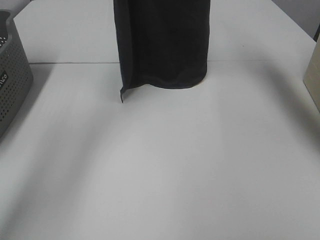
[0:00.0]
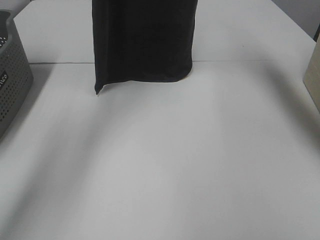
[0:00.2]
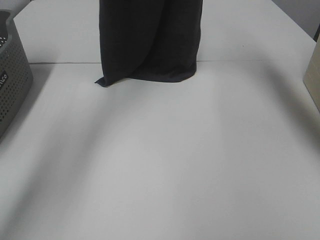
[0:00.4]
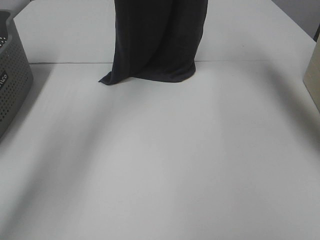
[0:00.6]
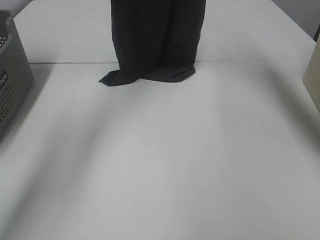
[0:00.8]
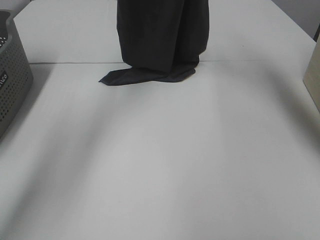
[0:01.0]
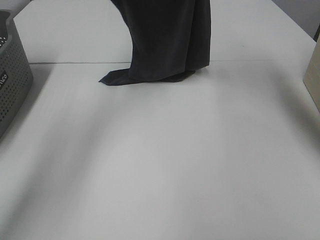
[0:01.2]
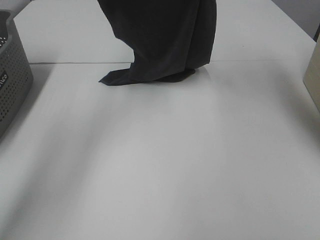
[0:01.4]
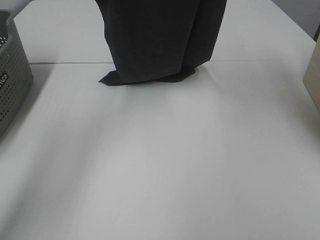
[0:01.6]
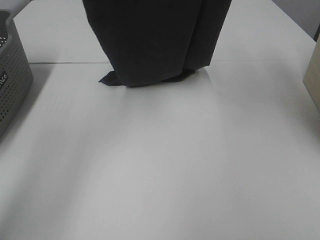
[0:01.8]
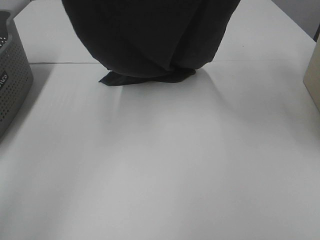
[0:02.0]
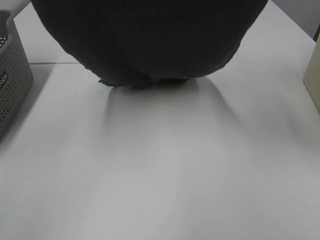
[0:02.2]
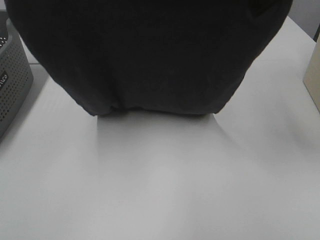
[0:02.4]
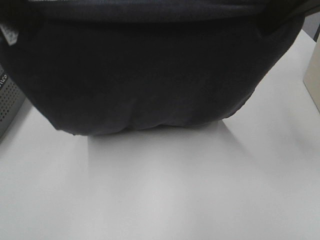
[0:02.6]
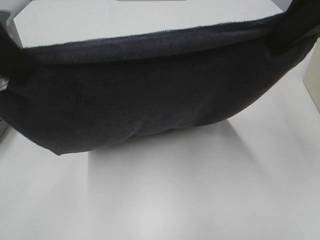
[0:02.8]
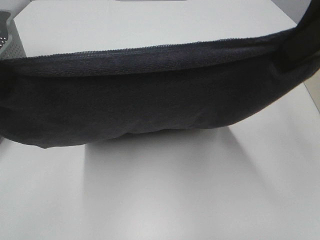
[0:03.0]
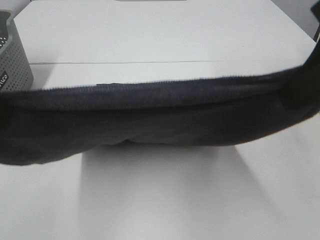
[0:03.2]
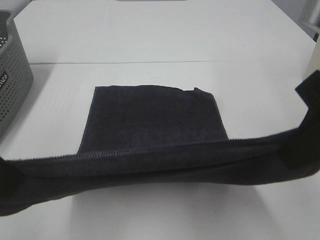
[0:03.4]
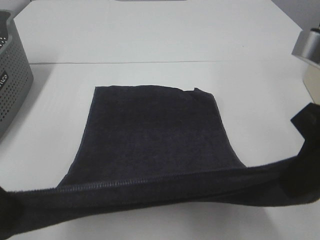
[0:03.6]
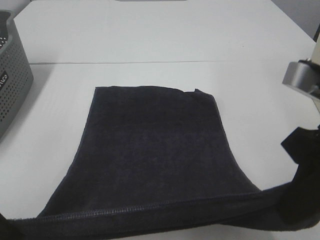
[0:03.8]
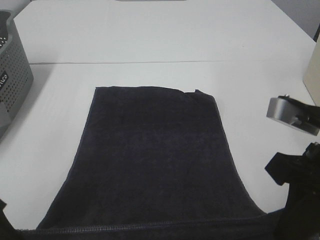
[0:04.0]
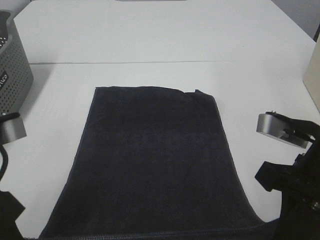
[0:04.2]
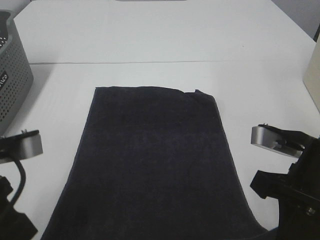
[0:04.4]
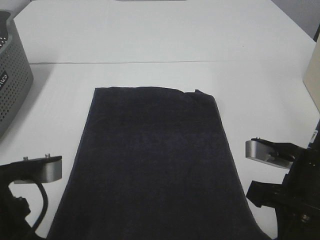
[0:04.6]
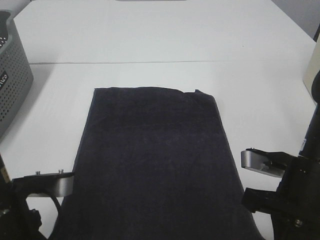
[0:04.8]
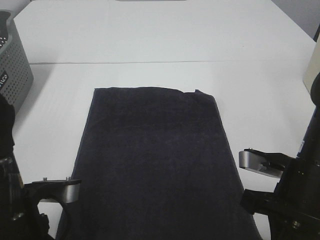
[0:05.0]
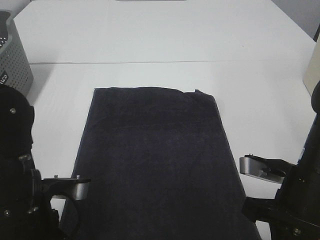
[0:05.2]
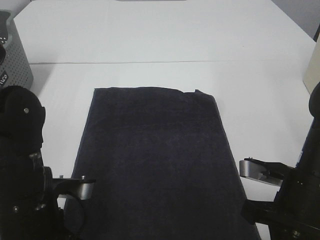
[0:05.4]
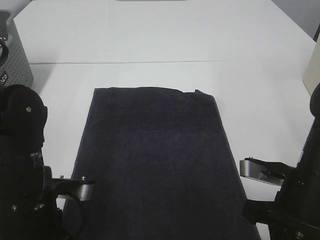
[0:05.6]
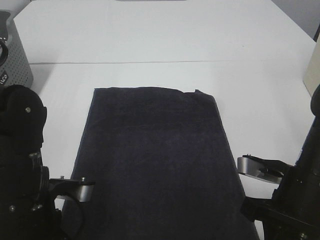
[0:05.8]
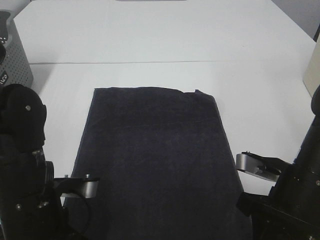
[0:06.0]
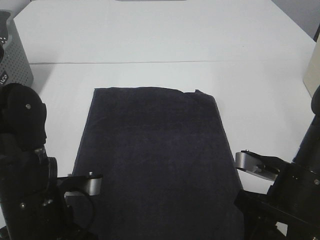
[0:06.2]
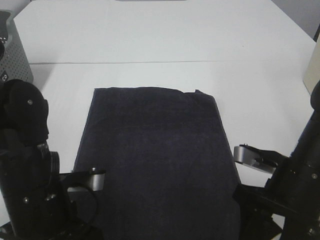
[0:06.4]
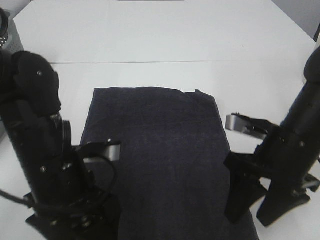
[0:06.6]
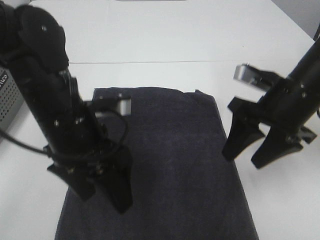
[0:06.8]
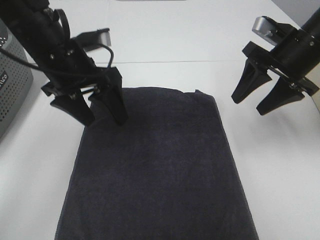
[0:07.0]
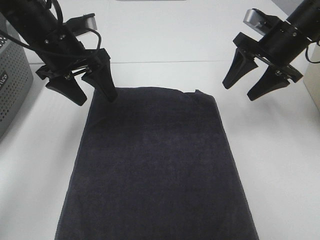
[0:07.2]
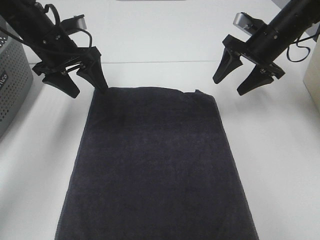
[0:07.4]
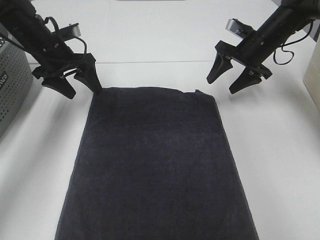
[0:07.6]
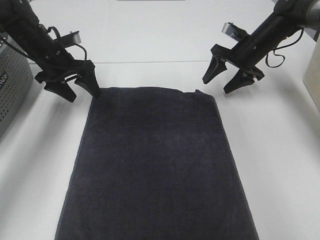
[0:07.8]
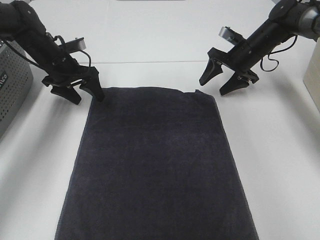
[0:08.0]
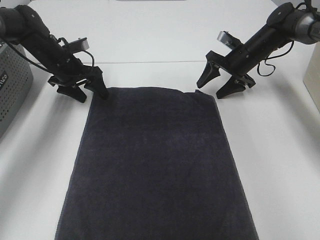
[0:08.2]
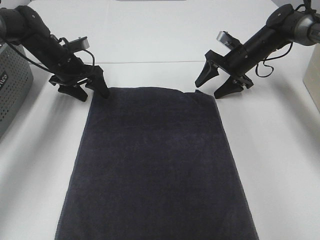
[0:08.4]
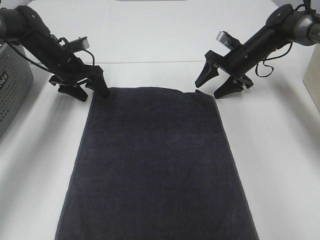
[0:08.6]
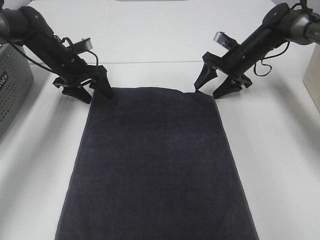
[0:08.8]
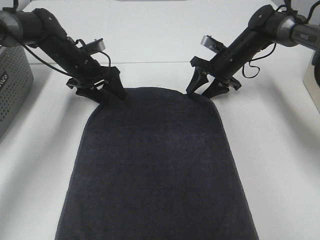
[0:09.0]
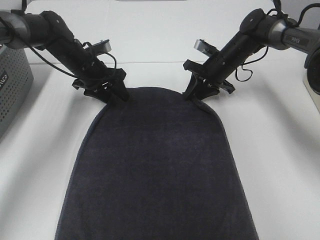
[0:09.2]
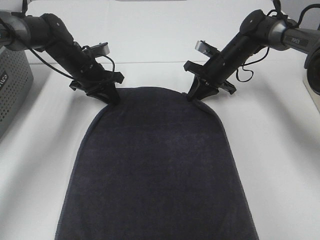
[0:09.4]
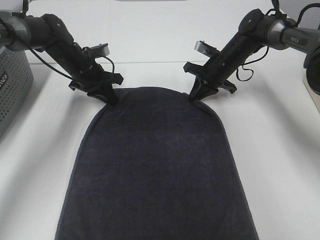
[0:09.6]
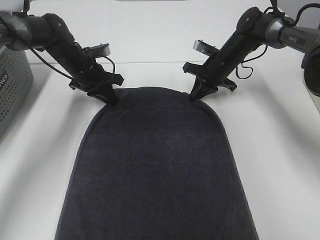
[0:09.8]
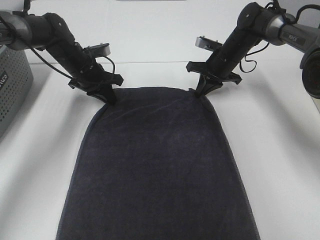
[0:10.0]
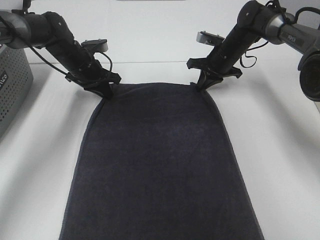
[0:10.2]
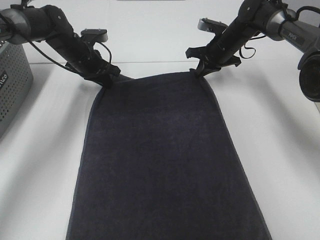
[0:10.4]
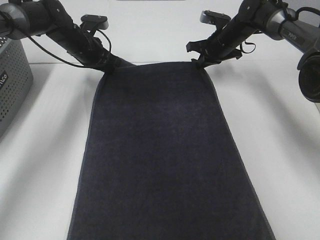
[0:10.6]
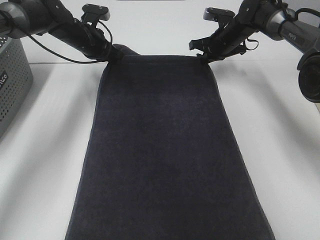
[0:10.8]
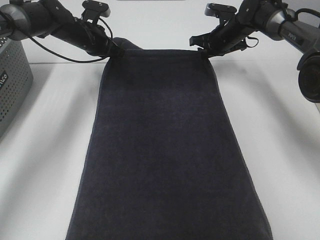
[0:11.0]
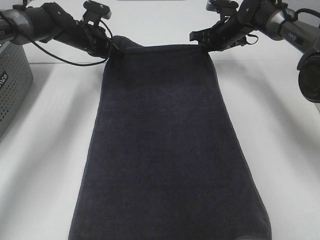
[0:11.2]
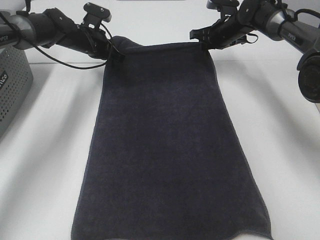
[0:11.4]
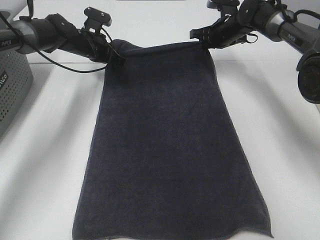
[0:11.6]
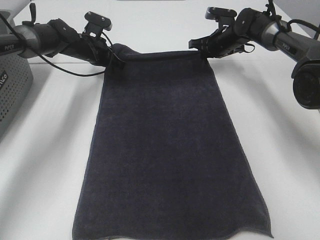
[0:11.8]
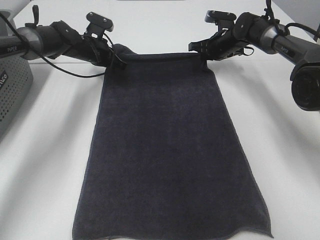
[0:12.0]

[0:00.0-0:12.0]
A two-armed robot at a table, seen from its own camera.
Task of the whole recording: Remove the towel and place it.
Step, 0:00.0 to 0:02.6: Left hand: spread the grey towel flat on the table.
Step, 0:00.0 to 0:02.6: Right hand: spread the grey towel flat on the table.
Step, 0:02.8 to 0:08.4: Left hand:adjust the gray towel.
Step, 0:02.8 to 0:08.4: Right hand:adjust the gray towel.
0:00.0 to 0:01.6: The left gripper heads downward, covering approximately 5 cm. The right gripper moves backward, some 5 cm.
0:01.6 to 0:03.0: The grippers both shift backward by about 25 cm.
0:03.0 to 0:04.4: Both grippers move downward, some 20 cm.
0:04.4 to 0:06.0: The two grippers go about 5 cm downward. The right gripper opens its fingers.
0:06.0 to 0:07.6: Both grippers travel together forward, approximately 30 cm. The left gripper opens its fingers. Meanwhile the right gripper opens up.
0:07.6 to 0:09.0: The grippers both shift downward by about 5 cm.
0:09.0 to 0:10.4: The right gripper moves roughly 5 cm, and closes up; the left gripper closes.

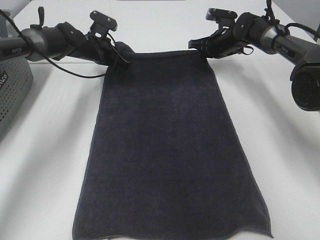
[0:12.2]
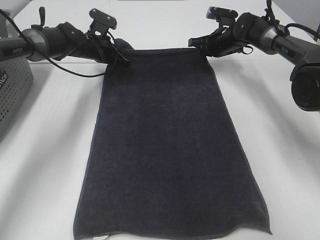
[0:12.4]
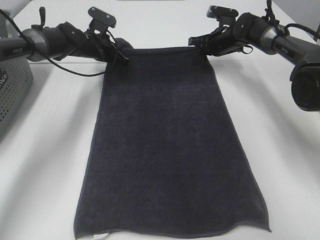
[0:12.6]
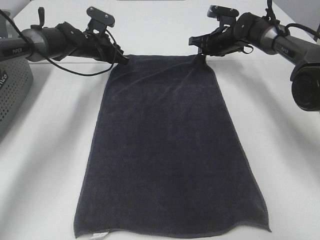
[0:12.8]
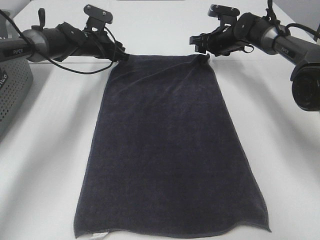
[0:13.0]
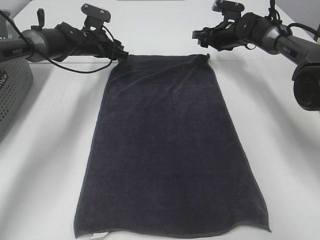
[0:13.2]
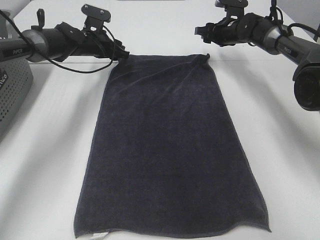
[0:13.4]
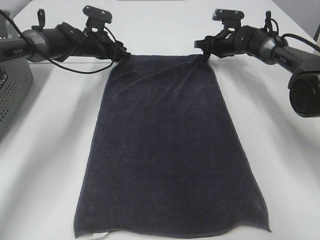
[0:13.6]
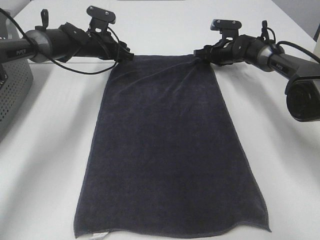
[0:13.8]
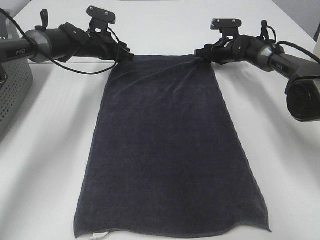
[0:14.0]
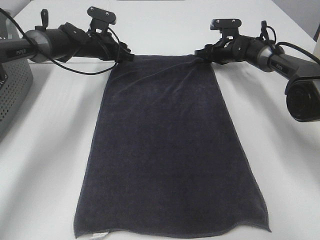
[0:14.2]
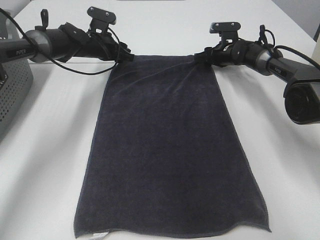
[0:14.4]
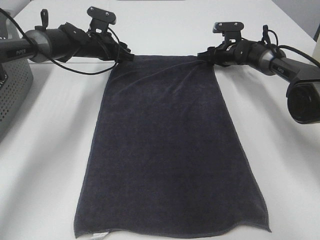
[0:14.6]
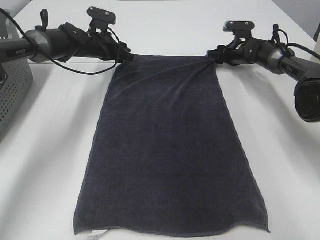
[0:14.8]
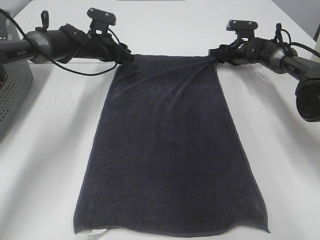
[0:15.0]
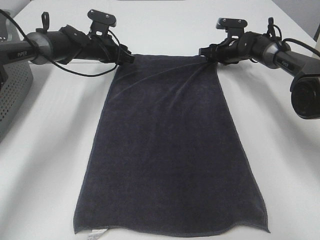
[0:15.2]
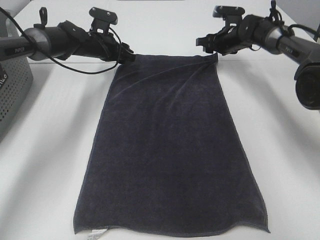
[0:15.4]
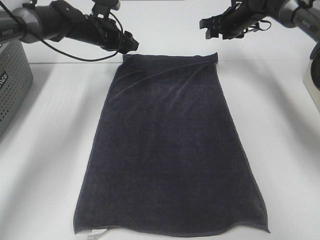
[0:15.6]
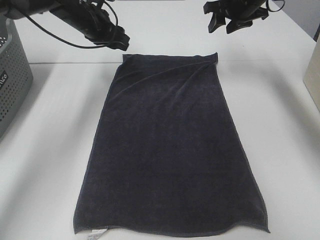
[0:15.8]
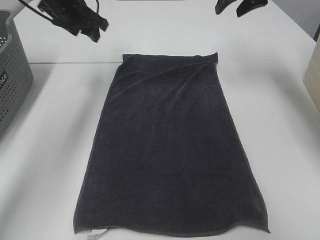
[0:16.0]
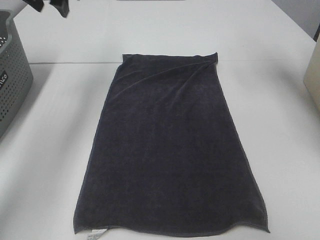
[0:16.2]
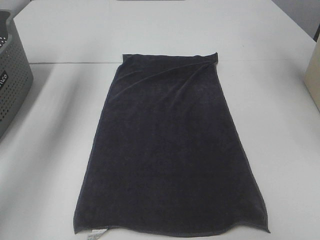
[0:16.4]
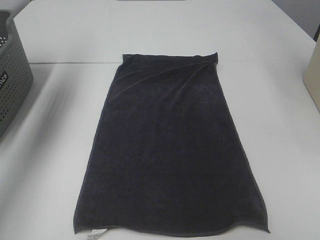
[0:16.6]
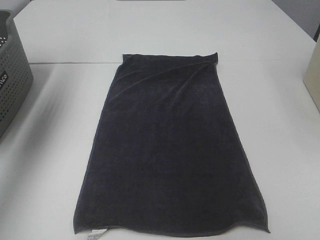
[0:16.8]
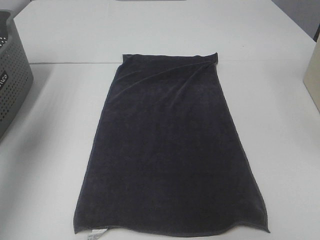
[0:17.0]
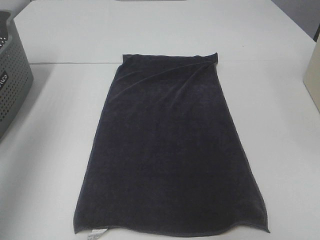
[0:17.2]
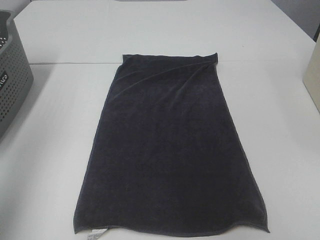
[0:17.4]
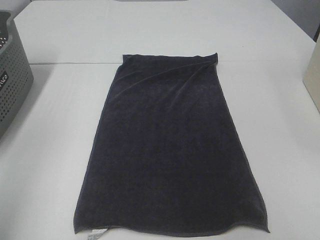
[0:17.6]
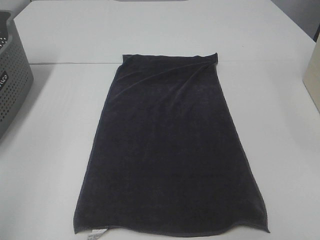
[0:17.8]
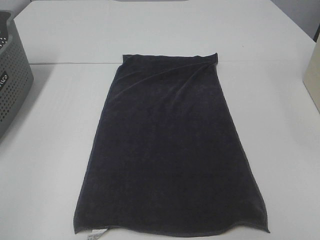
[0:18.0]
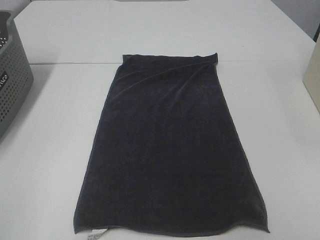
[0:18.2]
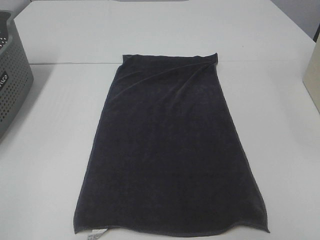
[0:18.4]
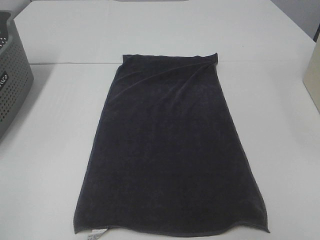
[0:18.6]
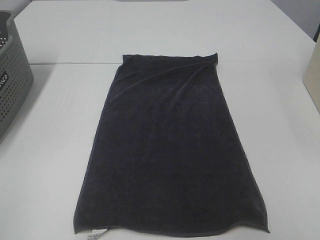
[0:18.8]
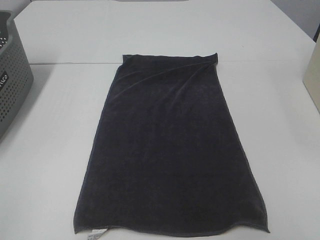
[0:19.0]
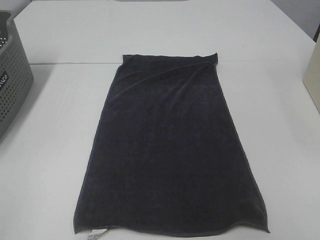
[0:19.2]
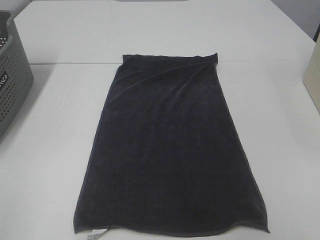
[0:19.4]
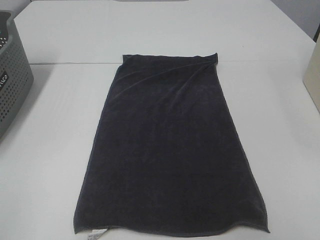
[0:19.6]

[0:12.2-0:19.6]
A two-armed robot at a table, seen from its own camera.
Task of the whole recording: Remove the towel and place it.
0:12.2 to 0:13.6: The right gripper opens up; the left gripper opens.
0:13.6 to 0:15.2: The grippers move only a little.
0:15.2 to 0:16.6: The left gripper shifts approximately 40 cm upward, to the left and backward; the right gripper is displaced upward and backward by some 40 cm.
0:16.6 to 0:18.2: The left gripper shifts roughly 40 cm backward.
